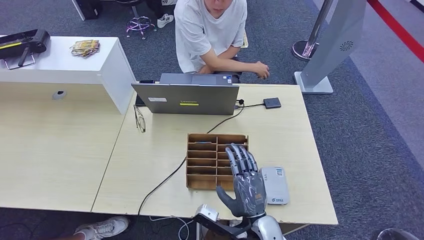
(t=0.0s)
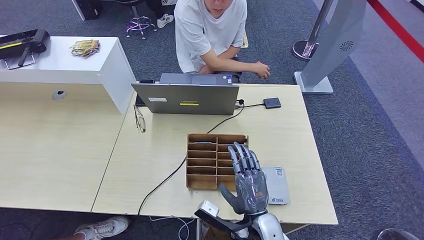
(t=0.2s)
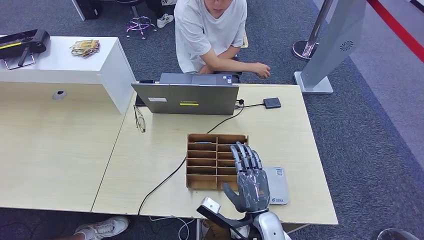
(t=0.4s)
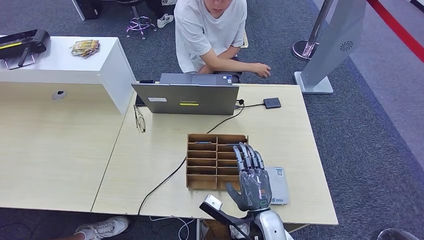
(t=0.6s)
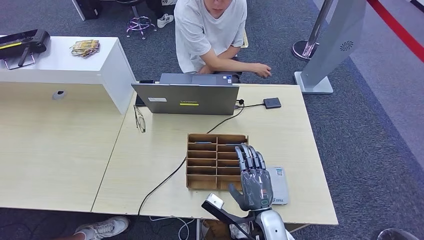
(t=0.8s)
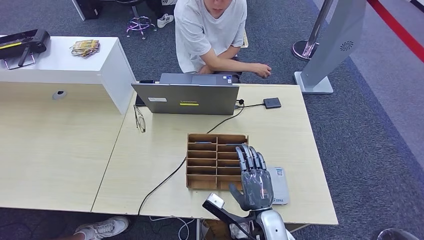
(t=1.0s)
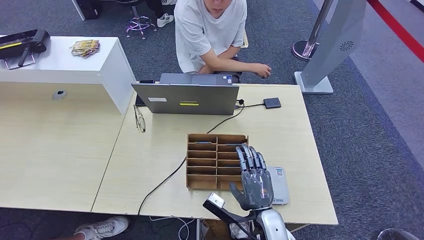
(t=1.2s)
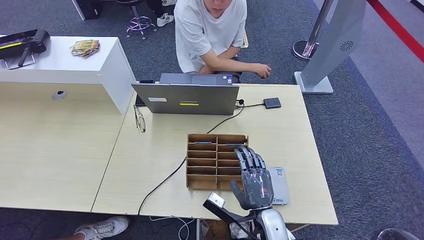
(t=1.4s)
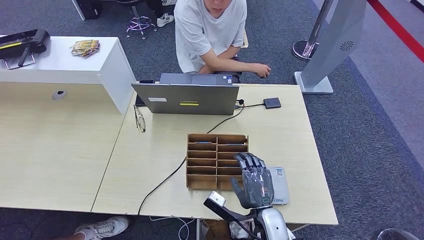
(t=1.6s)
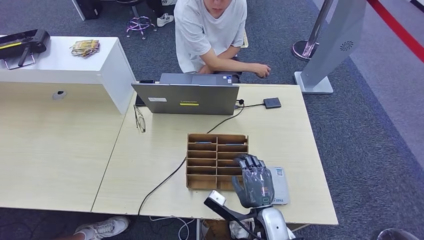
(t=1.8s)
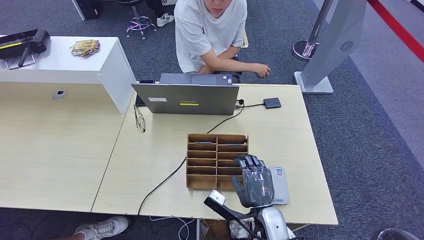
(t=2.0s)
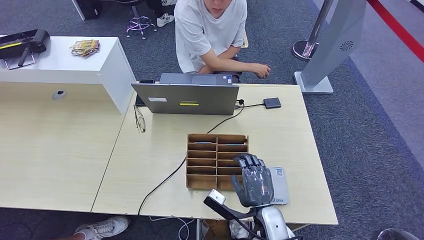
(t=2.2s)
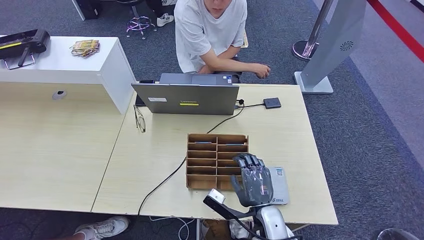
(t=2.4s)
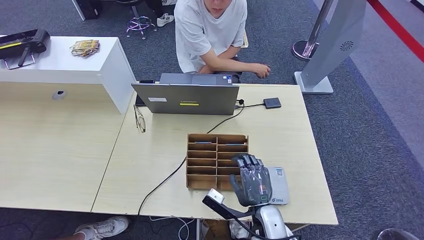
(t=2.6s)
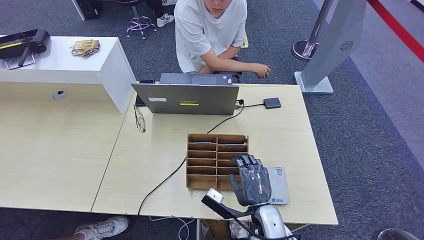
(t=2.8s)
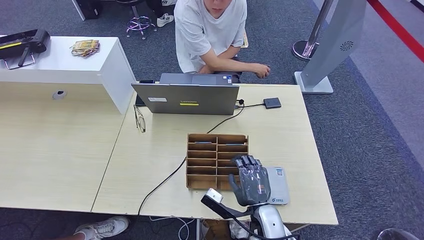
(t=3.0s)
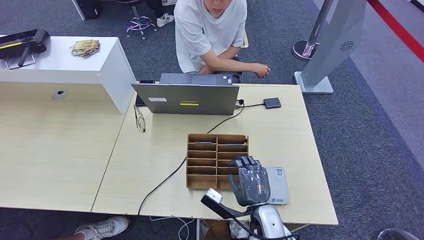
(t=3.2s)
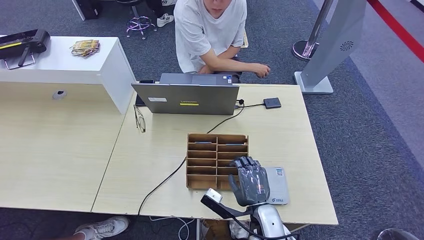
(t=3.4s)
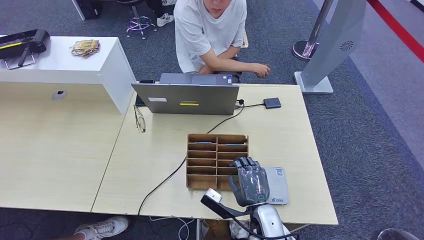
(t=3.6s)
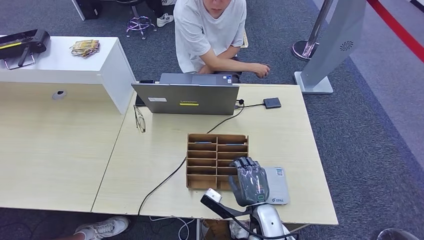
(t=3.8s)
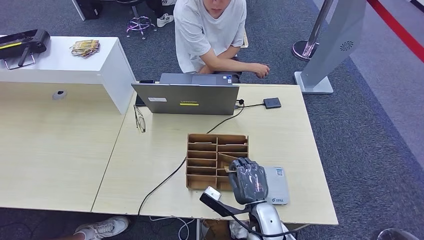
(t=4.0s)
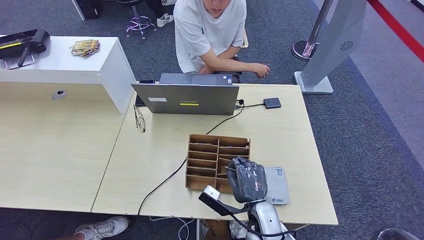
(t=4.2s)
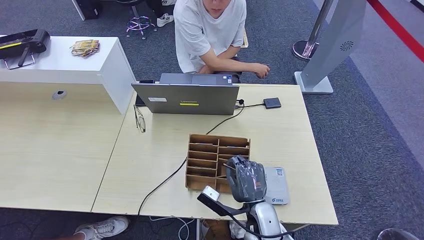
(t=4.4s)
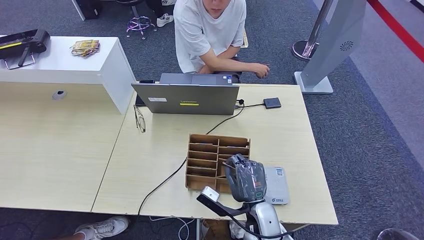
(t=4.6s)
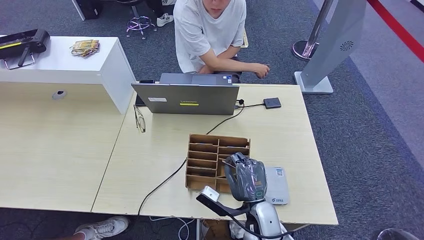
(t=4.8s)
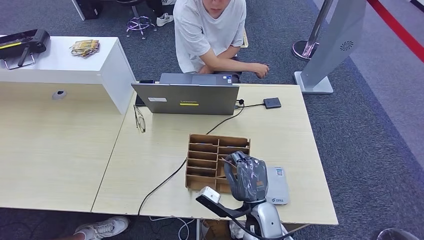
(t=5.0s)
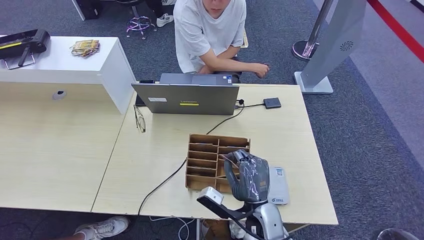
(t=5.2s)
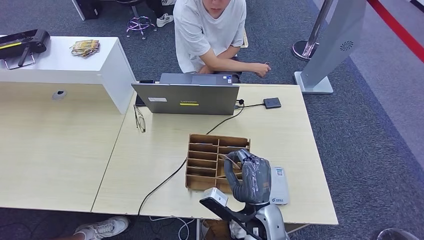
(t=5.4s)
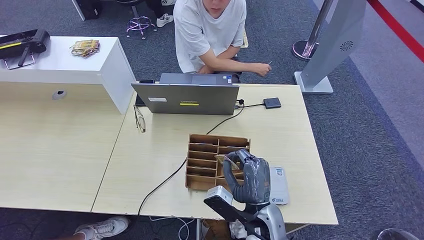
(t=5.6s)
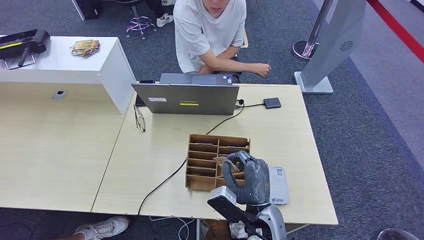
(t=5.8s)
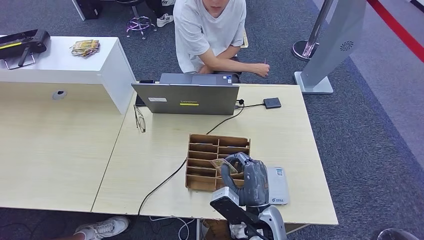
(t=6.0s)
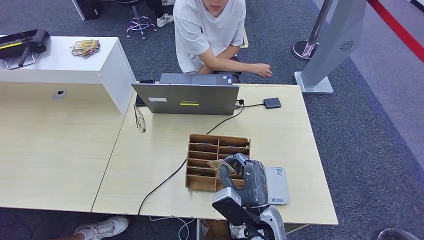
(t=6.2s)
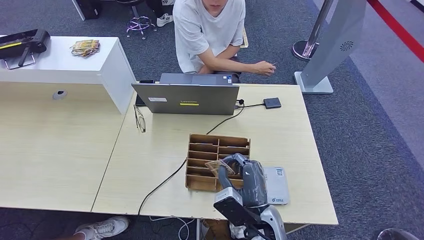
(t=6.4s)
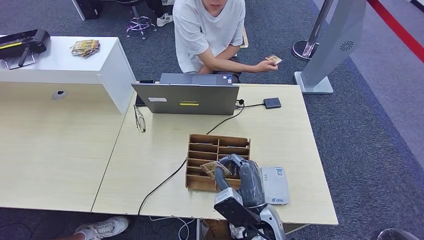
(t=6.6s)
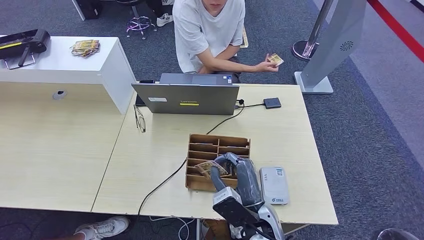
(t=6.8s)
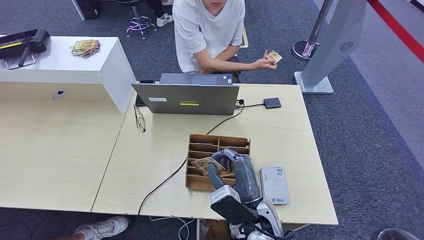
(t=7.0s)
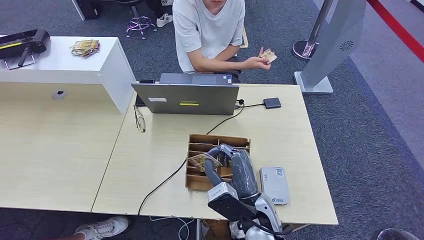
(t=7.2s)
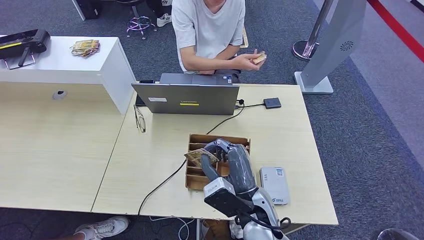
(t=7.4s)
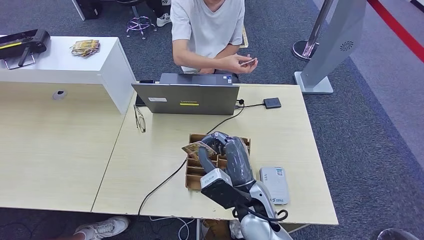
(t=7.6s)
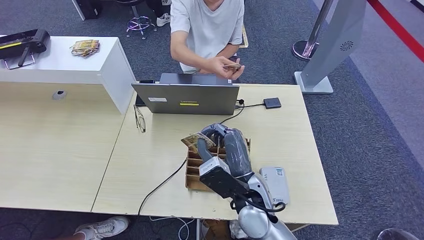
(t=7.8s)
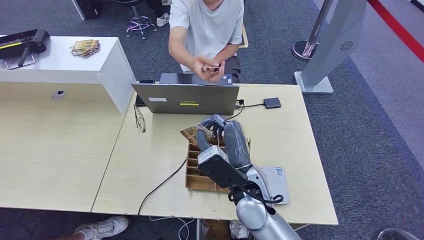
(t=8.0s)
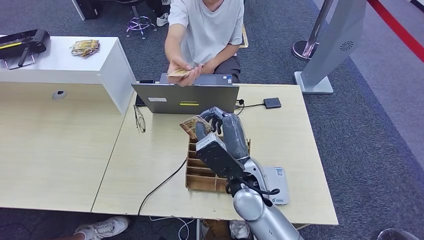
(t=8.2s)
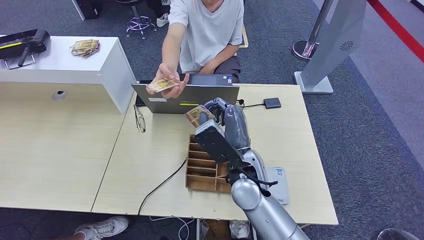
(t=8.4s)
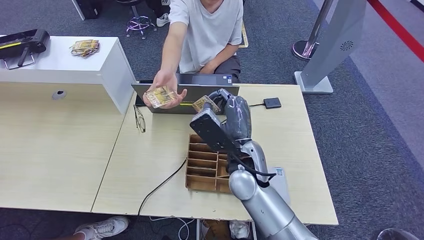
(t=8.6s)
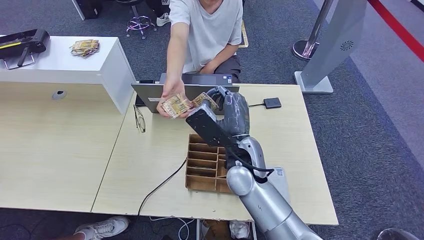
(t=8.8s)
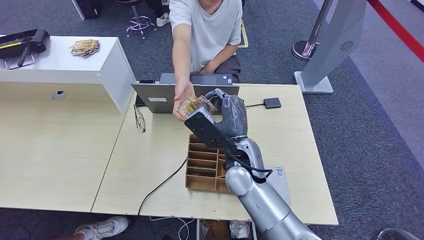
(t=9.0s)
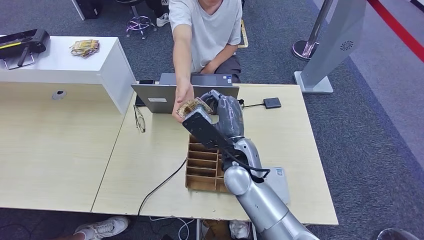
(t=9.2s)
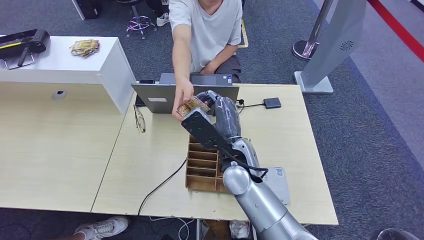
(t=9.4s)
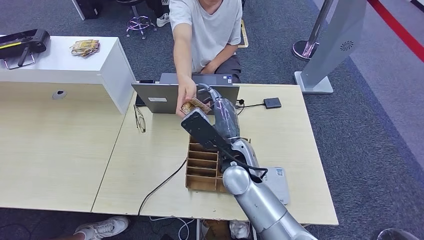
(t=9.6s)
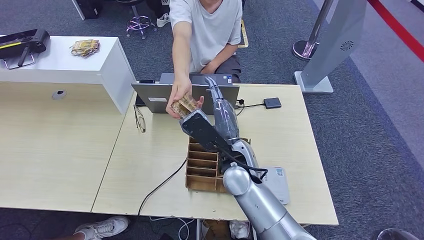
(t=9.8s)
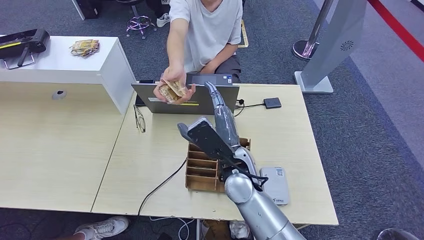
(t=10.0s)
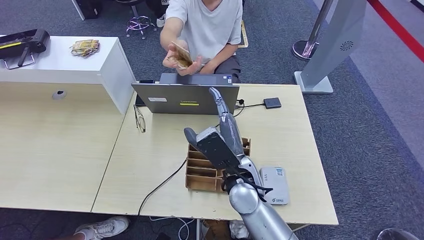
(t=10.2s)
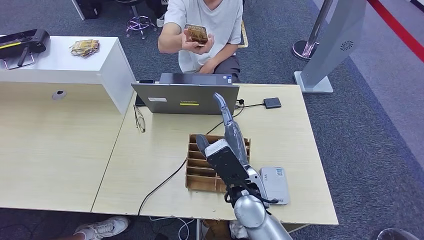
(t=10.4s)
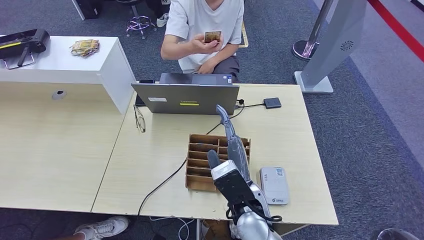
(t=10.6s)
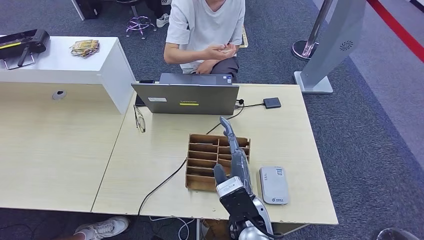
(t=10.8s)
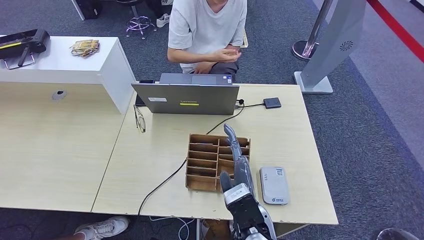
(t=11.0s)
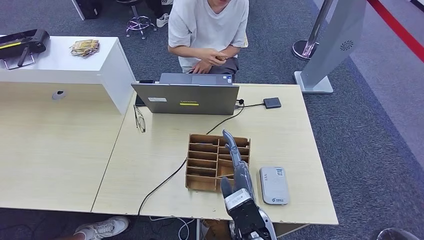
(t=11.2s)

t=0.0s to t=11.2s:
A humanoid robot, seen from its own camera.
Step, t=4.0s to t=6.6s: Pick up the room key from the key card box.
Step, t=6.8s to t=11.2s: Hand the room key to the person.
t=0.0s to t=1.6s: There are only small adjustments of the hands.
t=1.6s to t=3.2s: Neither hand changes place.
t=3.2s to t=4.8s: The hands move only a little.
t=6.4s to t=8.0s: The right hand heads upward and forward, covering about 10 cm.
t=8.0s to t=9.6s: The right hand travels forward by roughly 5 cm.
t=9.6s to t=11.2s: The right hand shifts some 15 cm backward and downward.
